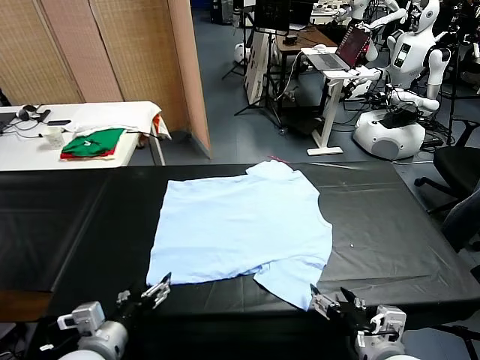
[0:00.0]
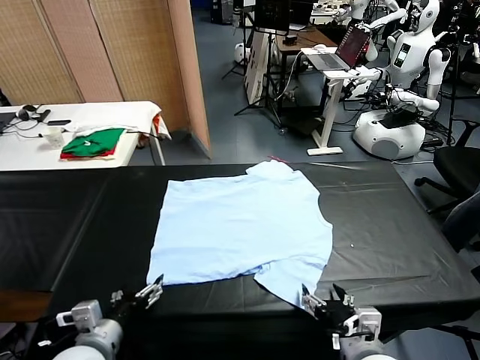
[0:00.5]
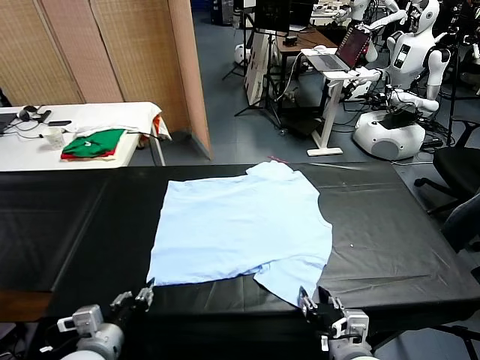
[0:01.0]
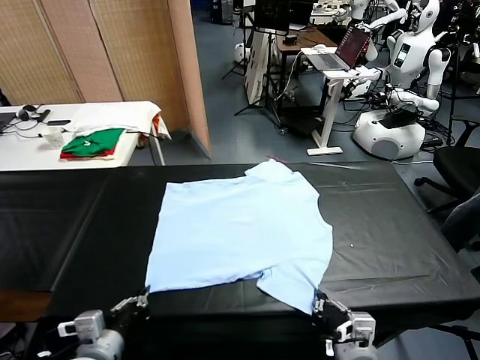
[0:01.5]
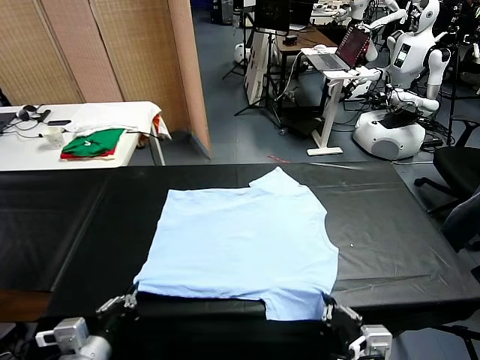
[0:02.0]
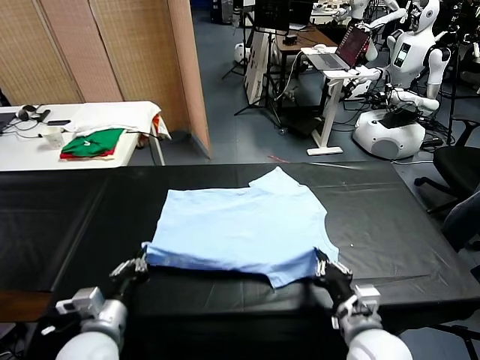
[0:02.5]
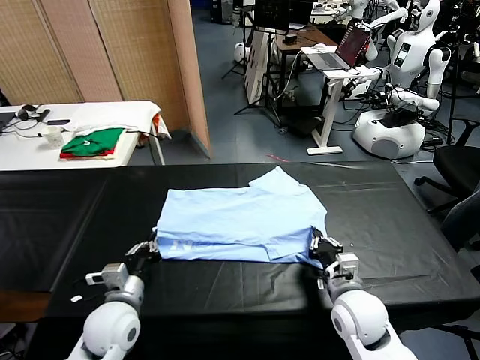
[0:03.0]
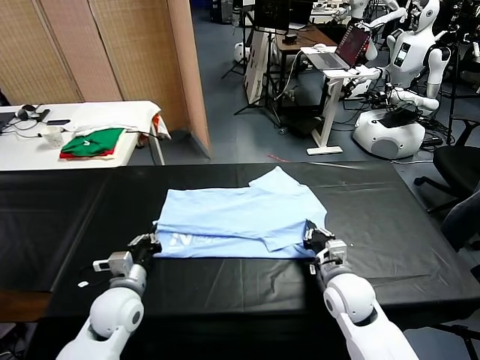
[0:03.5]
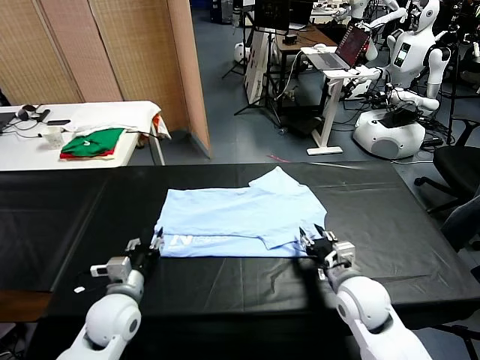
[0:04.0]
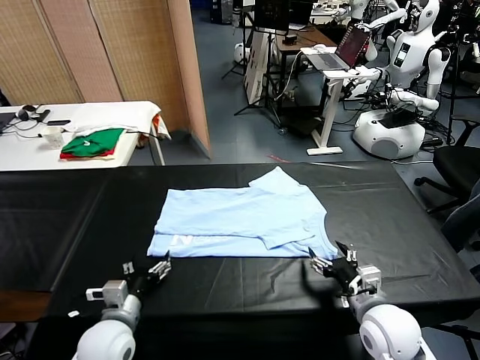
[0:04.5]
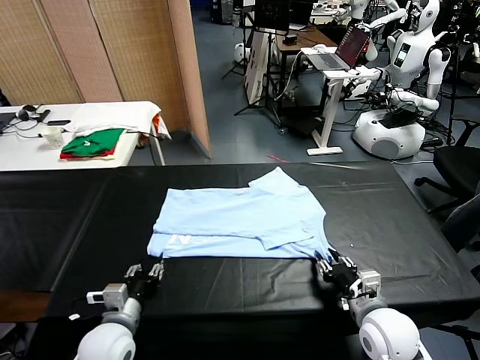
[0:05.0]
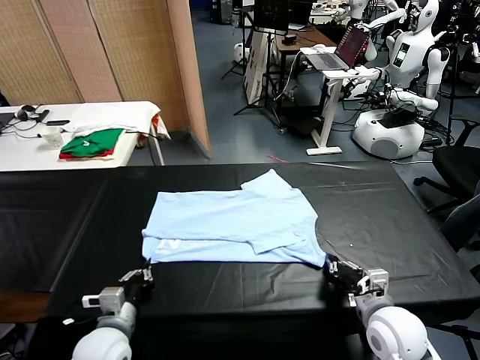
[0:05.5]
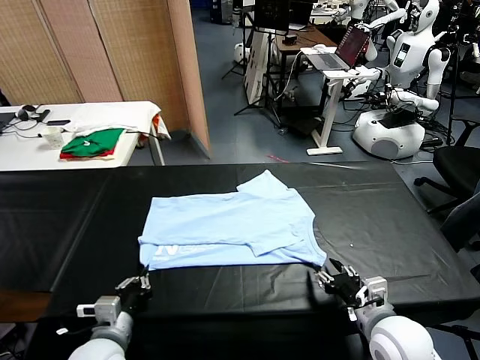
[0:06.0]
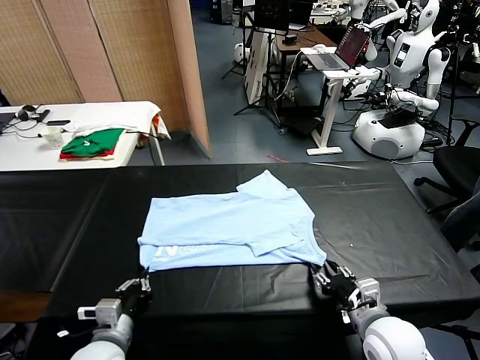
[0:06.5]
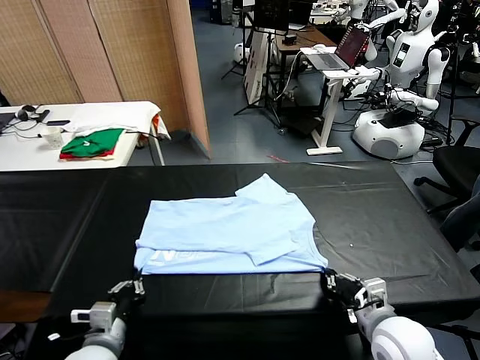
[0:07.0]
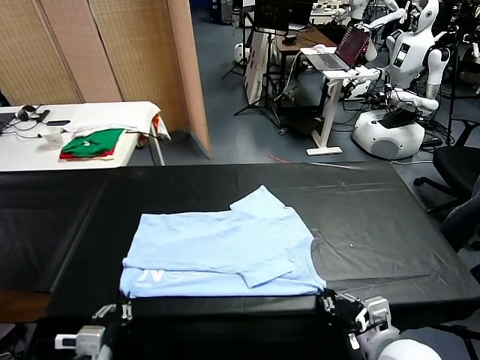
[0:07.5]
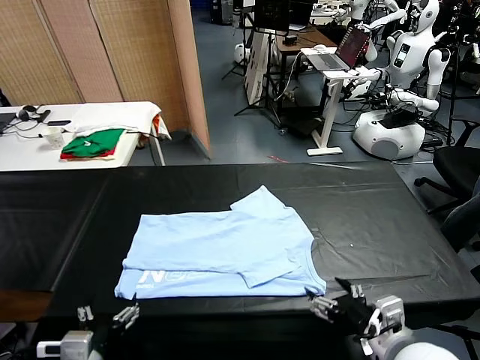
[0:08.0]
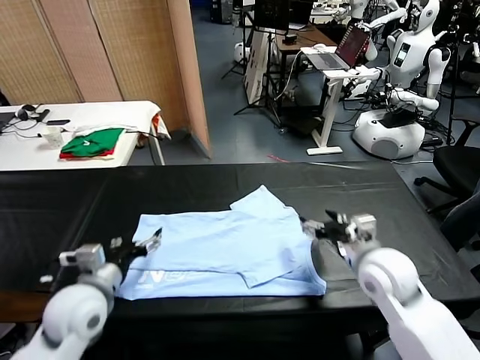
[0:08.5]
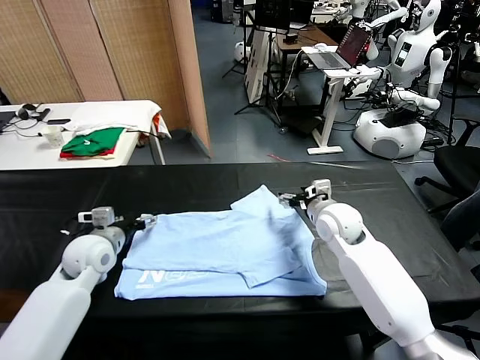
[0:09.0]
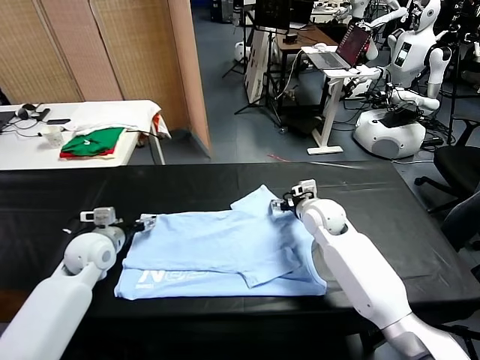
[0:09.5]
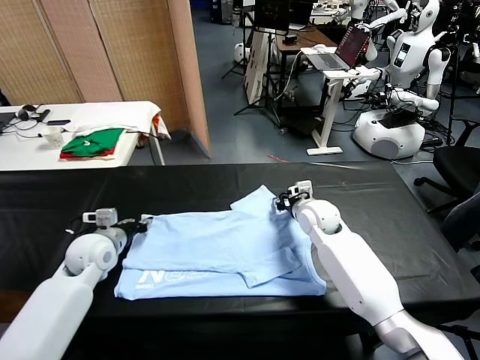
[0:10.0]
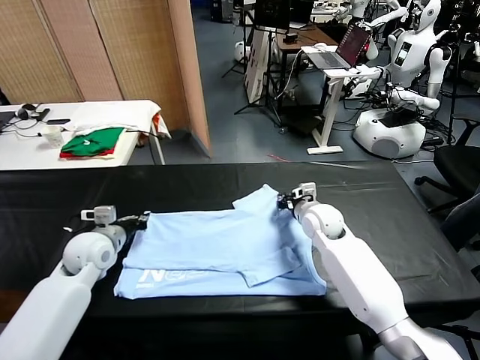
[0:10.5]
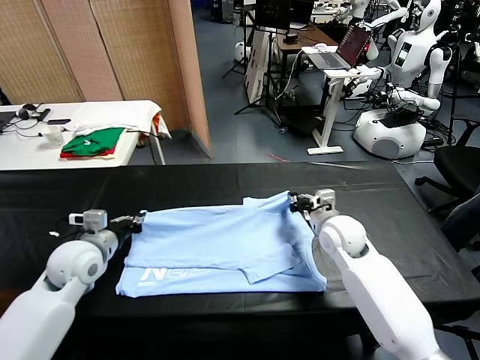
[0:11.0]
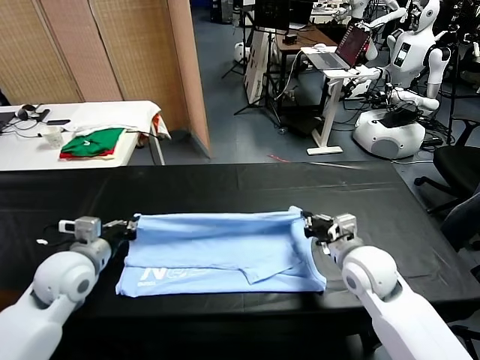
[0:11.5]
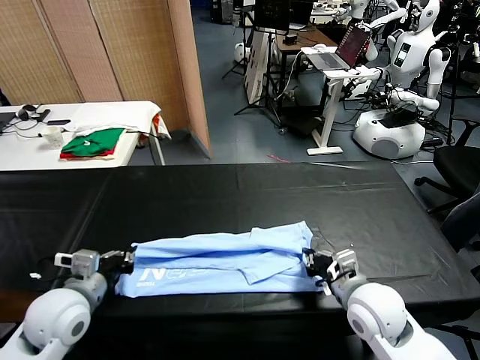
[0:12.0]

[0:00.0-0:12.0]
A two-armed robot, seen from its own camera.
Task of the whole recording: fold and organize the clothes.
Step, 0:00.0 to 0:01.0: use both grippers simultaneously to clamp the lower edge of the clothing fabric.
Step, 0:01.5 to 0:03.5: use both grippers to drag the lower edge of the fabric forward and fold it over the upper edge.
Step, 0:04.5 to 0:07.5: Drag the clothes downward with both gripper.
Step, 0:08.0 to 0:10.0: use both grippers simultaneously to clamp the upper edge of the clothing fabric.
0:02.0 to 0:04.0: The left gripper heads forward and downward, covering about 15 cm, and opens its fingers. The right gripper moves forward, some 10 cm, and opens.
0:04.0 to 0:06.0: The left gripper is displaced backward by roughly 10 cm, and closes up. The right gripper closes and opens again.
0:06.0 to 0:08.0: The left gripper travels upward and backward by roughly 10 cm, and opens its fingers. The right gripper is displaced upward by some 10 cm, and closes and opens again.
0:08.0 to 0:10.0: The grippers both shift forward by roughly 30 cm. The right gripper closes up. The left gripper closes.
0:10.0 to 0:12.0: The right gripper heads backward, covering roughly 25 cm. The left gripper goes about 15 cm backward.

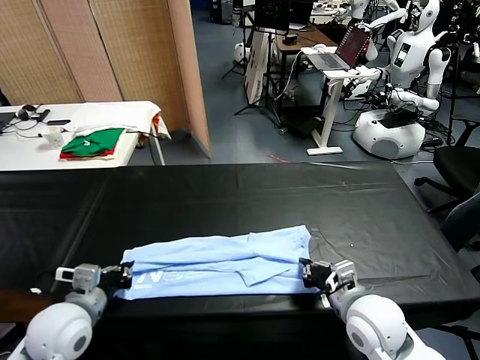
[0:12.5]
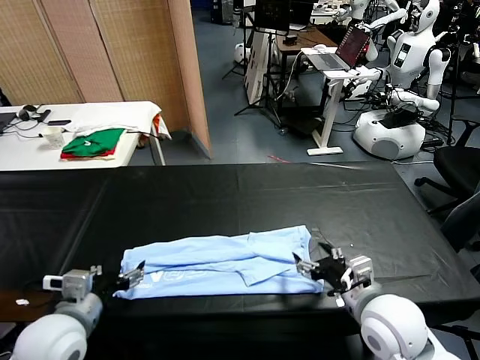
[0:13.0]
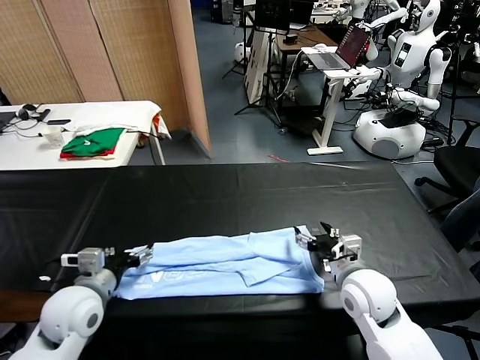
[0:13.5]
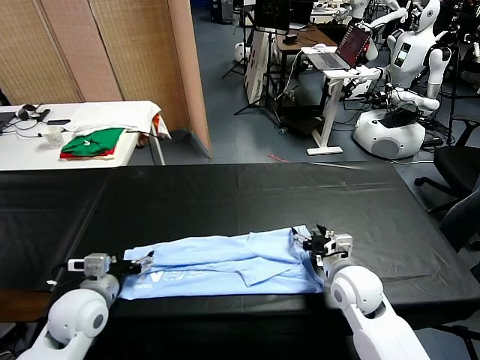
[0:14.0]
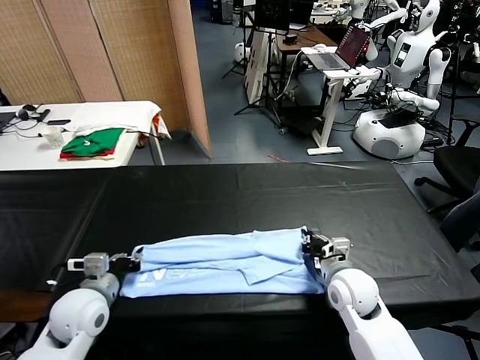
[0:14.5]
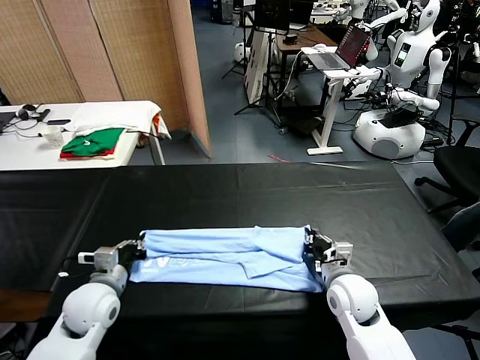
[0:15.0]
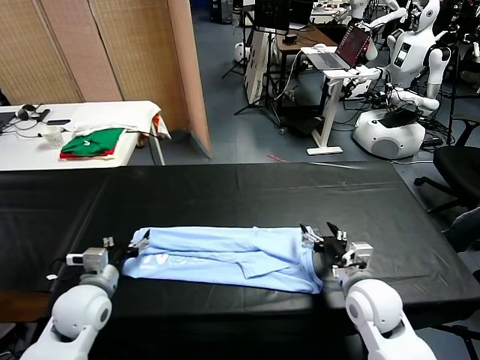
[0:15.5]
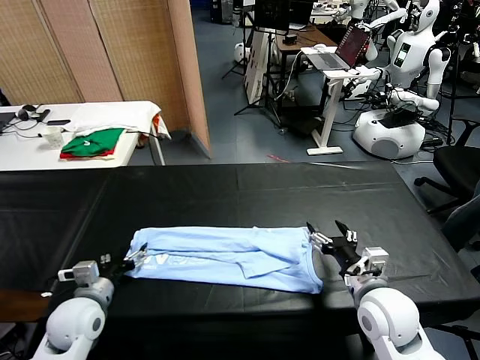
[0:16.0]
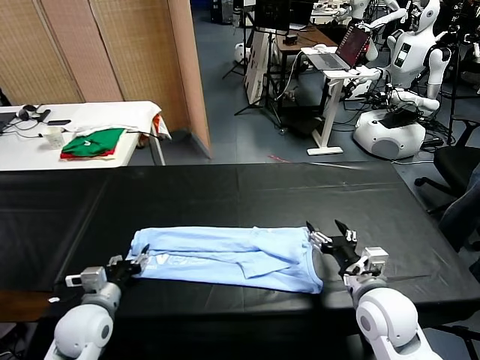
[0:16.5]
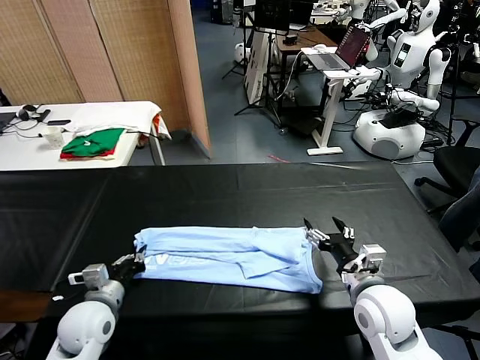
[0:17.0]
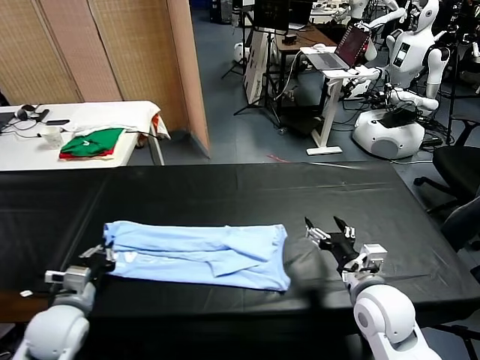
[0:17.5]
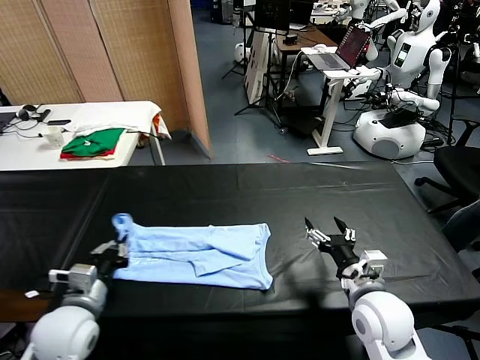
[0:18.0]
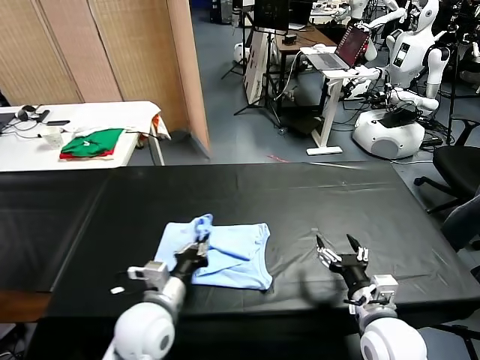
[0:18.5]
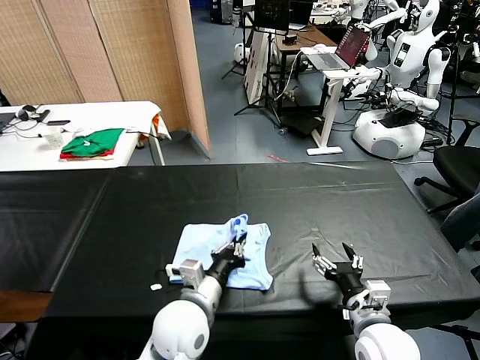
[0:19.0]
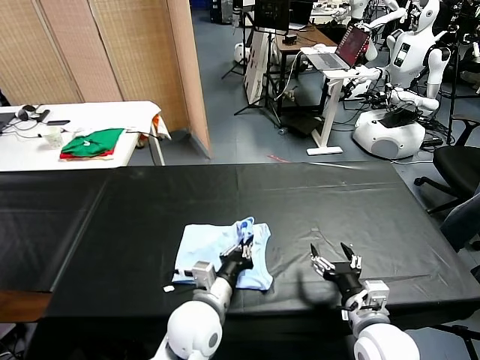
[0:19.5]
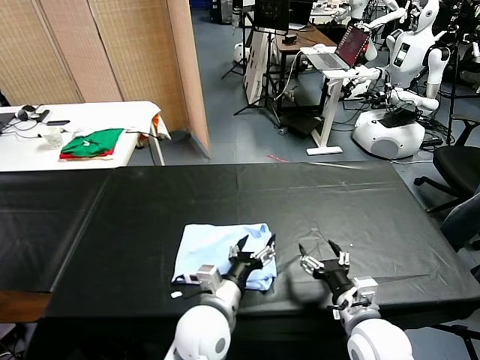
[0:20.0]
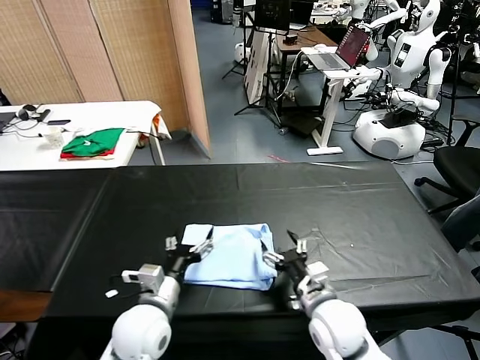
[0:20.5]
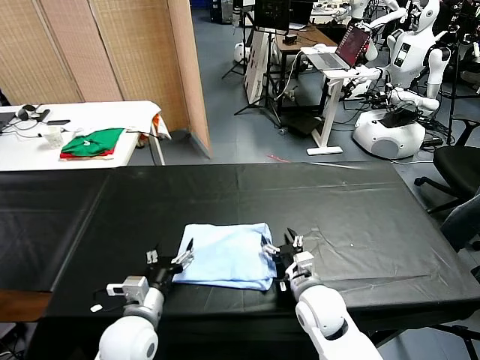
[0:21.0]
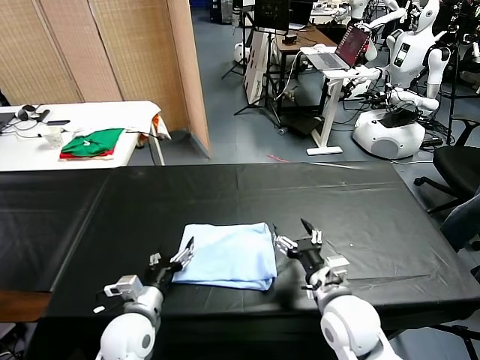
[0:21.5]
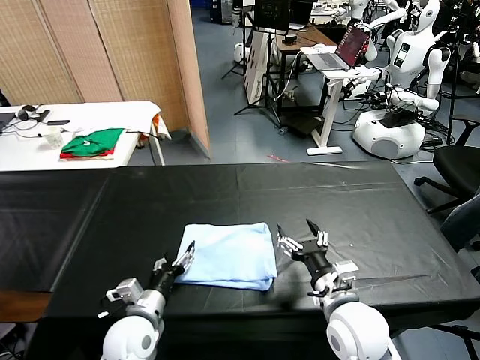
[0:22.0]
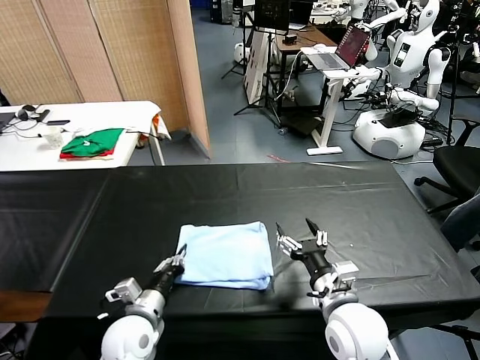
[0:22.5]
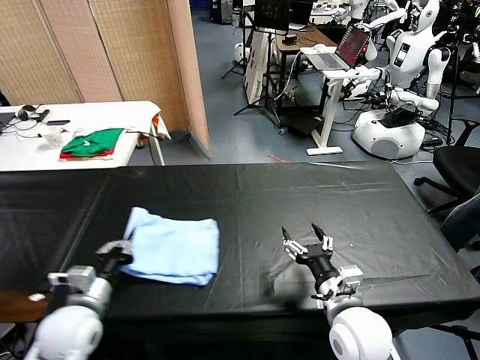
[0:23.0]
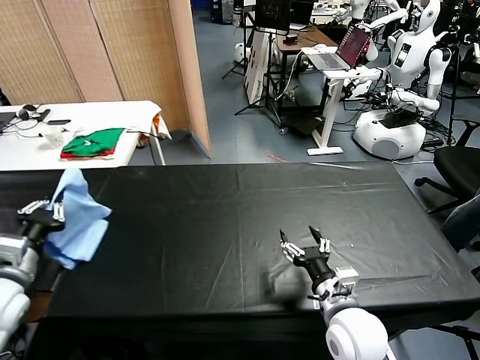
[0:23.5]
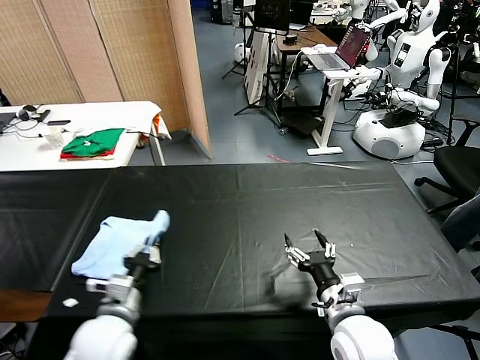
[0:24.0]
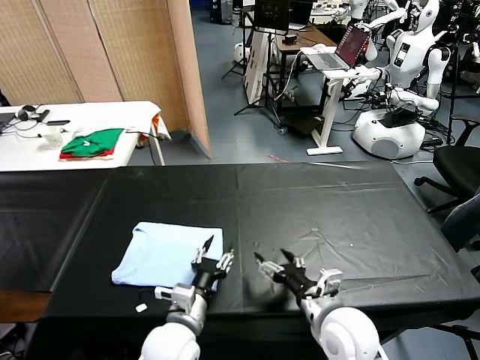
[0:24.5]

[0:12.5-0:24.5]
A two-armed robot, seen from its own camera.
Task of the whole recording: fold and organize the clothes.
Step, 0:13.0 to 0:16.5: use the left gripper to clamp the left edge of the fabric.
Step, 0:17.0 to 0:19.5: use the left gripper to drag the left edge of the fabric to the left and folds it over the right edge.
Step, 0:20.0 to 0:24.0: Flip the folded clothes over with left gripper.
0:12.5 to 0:14.5: The right gripper goes about 10 cm forward and downward, and opens, then closes once more, while the left gripper shifts by about 5 cm, and opens, then closes again.
0:14.5 to 0:16.5: The left gripper opens its fingers. Meanwhile the right gripper travels backward and upward by about 10 cm, and opens up.
0:16.5 to 0:18.5: The left gripper is displaced to the right by about 15 cm, and closes its fingers. Meanwhile the right gripper changes place by roughly 5 cm.
0:18.5 to 0:20.5: The left gripper goes to the right and returns, some 10 cm each way, and opens its fingers; the right gripper goes roughly 10 cm to the left and forward.
0:20.5 to 0:22.5: The left gripper goes about 5 cm downward, and closes up. The right gripper changes place by about 5 cm.
0:22.5 to 0:24.5: The left gripper heads to the right, covering approximately 10 cm, and opens its fingers.

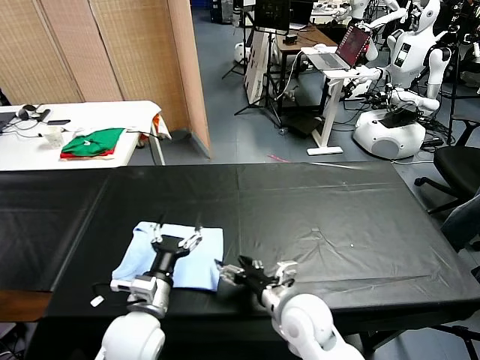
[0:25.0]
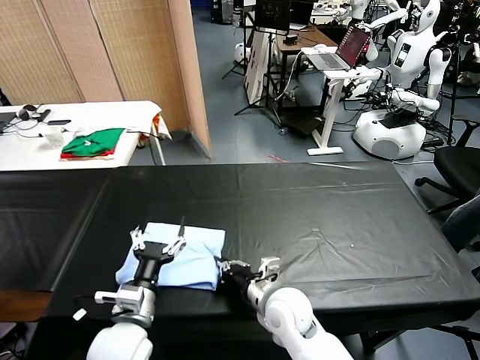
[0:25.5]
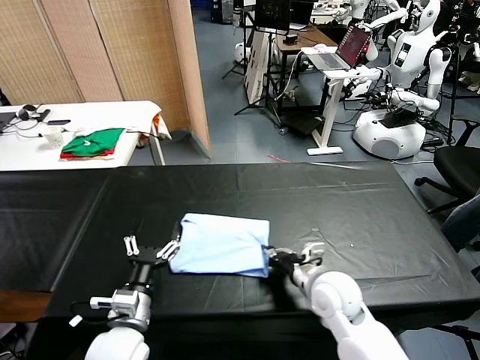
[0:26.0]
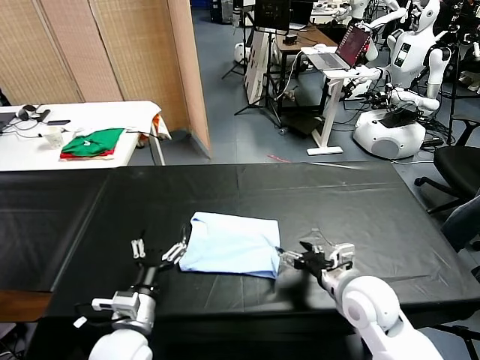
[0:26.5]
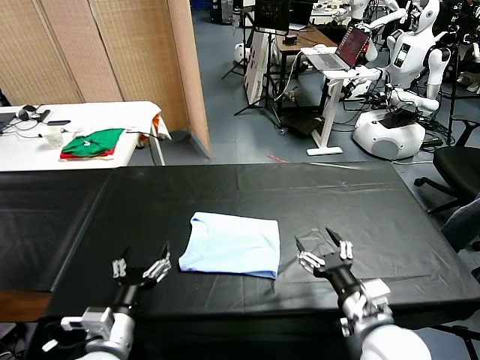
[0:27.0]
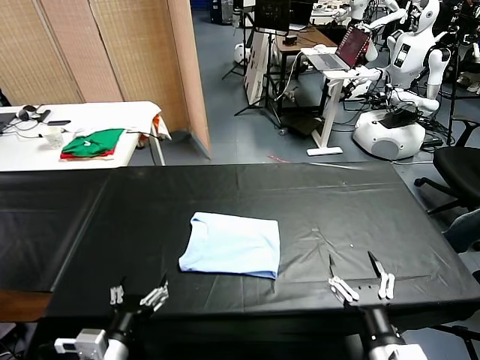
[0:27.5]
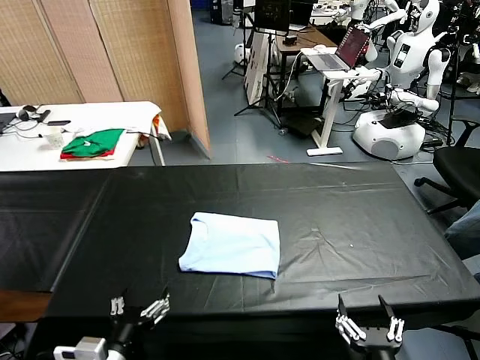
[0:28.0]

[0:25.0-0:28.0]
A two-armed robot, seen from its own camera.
Task of the whole recording: fold and organize the clothes.
Step, 0:25.0 to 0:26.0: Drag the clothes to the center of the table.
0:25.0 to 0:26.5: The right gripper moves to the right, roughly 10 cm, and closes and opens again.
0:26.5 to 0:28.0: The right gripper travels backward by roughly 25 cm. Meanwhile the left gripper is displaced backward by approximately 10 cm.
